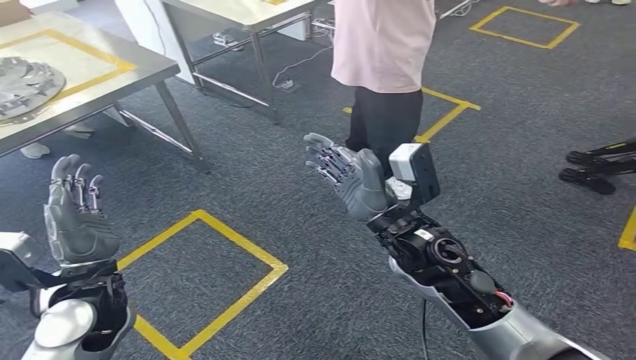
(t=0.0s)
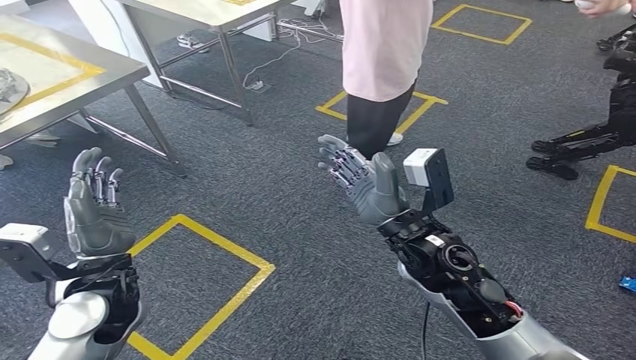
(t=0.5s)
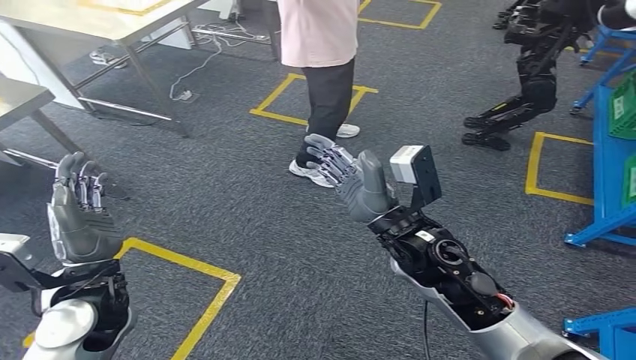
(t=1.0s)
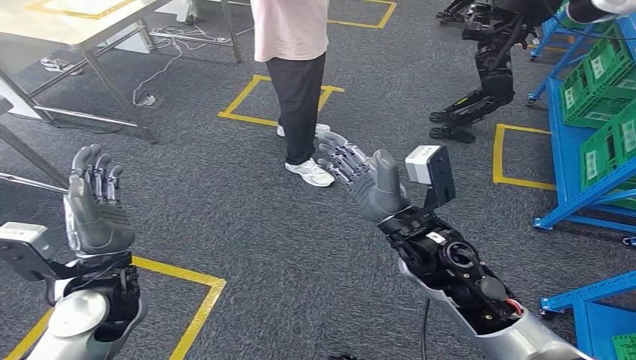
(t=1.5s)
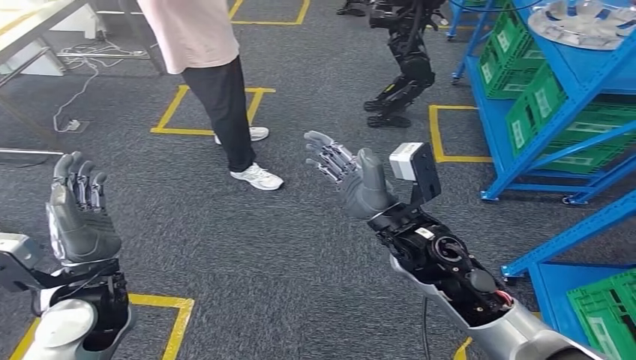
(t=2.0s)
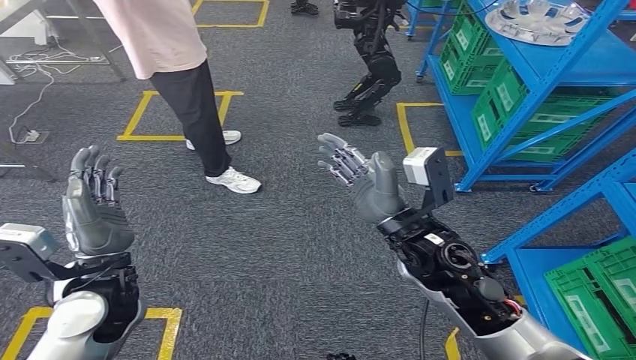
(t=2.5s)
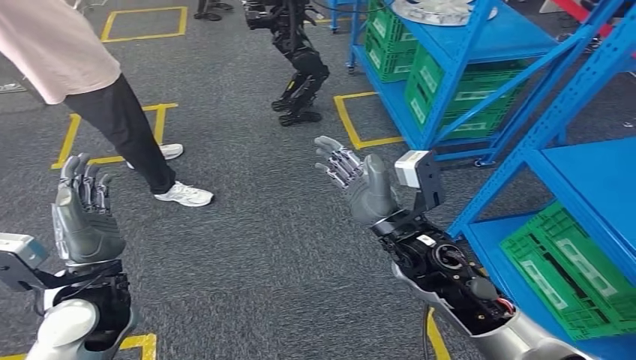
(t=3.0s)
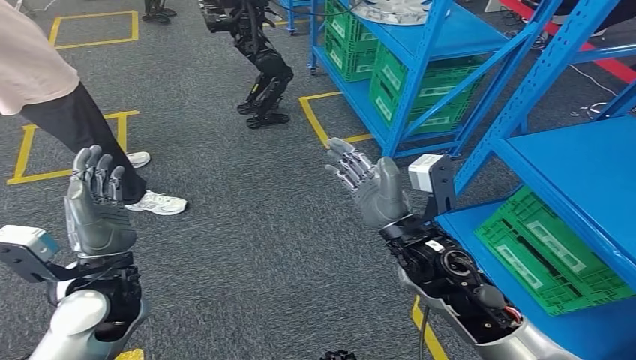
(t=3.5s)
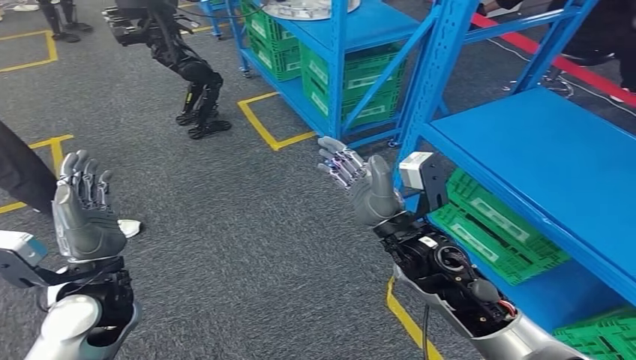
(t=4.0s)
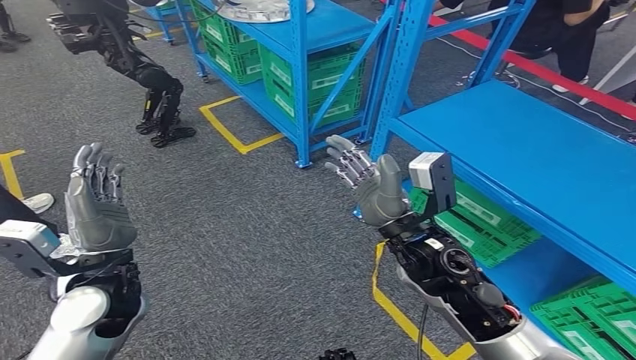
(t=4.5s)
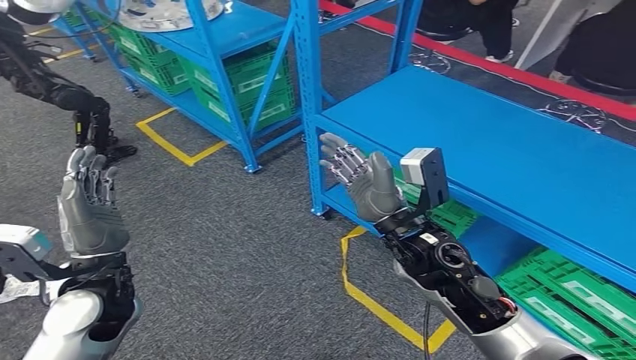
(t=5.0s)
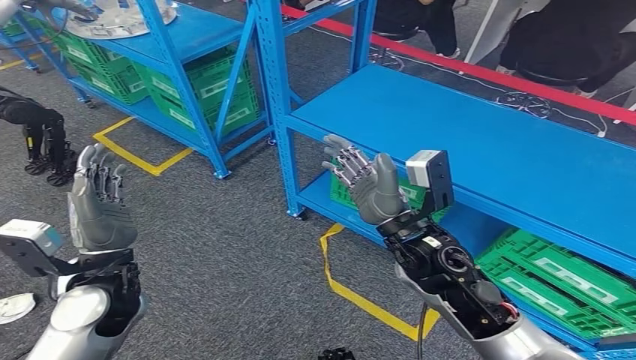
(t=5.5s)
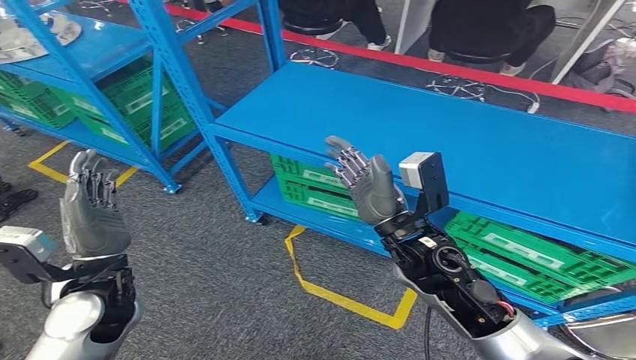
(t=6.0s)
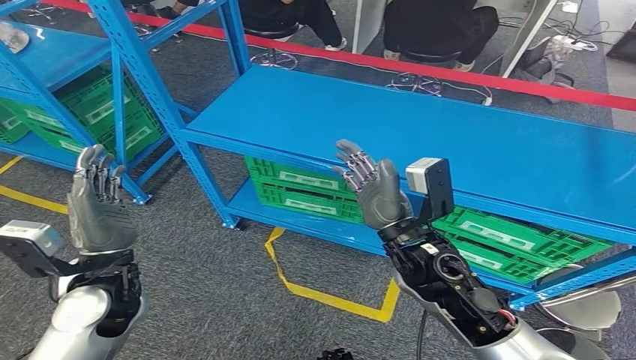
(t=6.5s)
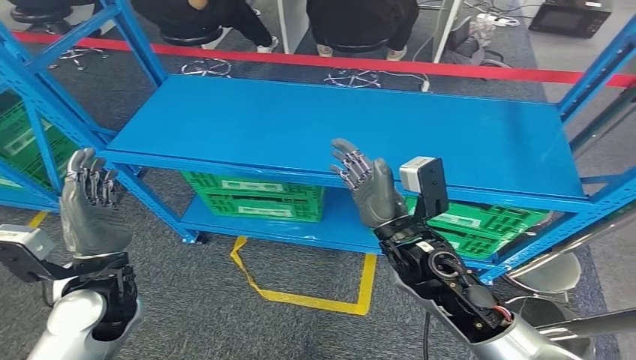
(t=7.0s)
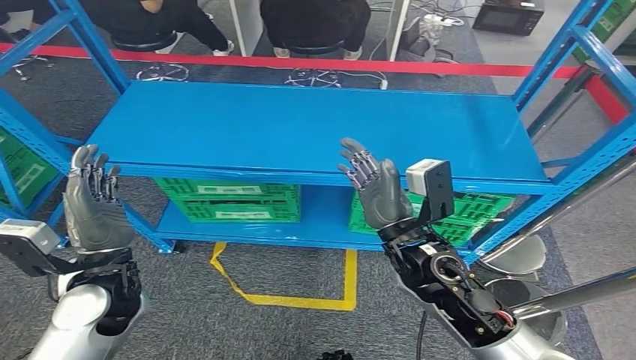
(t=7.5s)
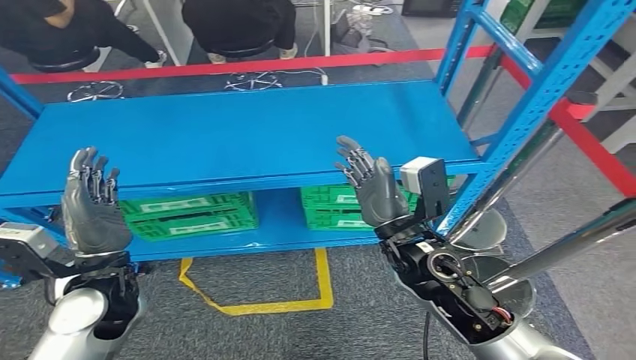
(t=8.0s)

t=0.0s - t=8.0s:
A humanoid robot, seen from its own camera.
Step, t=0.0s - t=8.0s: Move to the initial position at the workbench.
